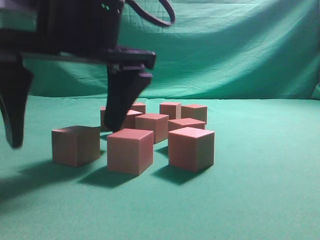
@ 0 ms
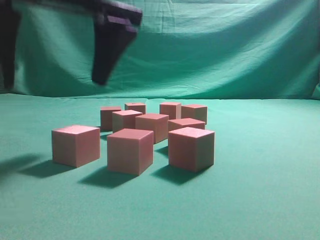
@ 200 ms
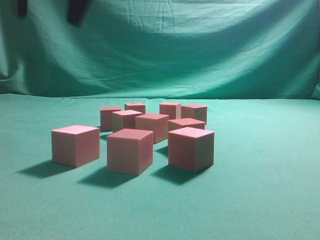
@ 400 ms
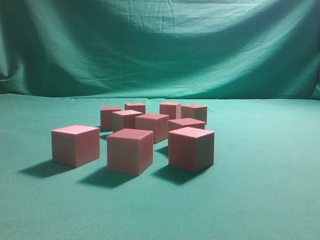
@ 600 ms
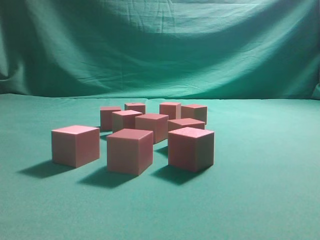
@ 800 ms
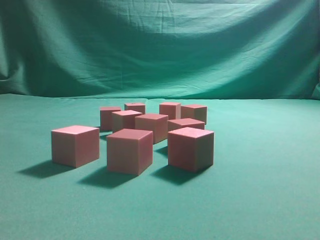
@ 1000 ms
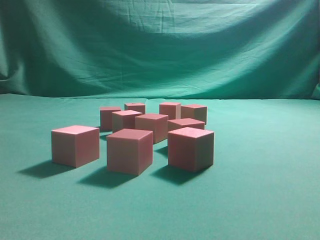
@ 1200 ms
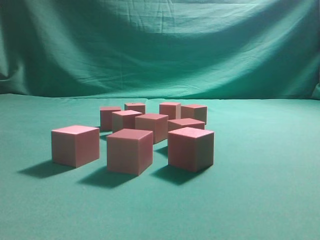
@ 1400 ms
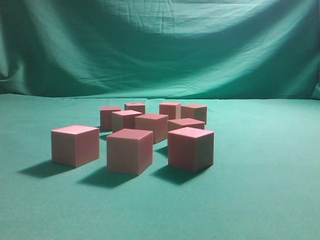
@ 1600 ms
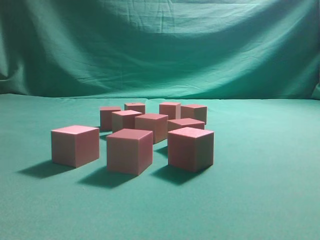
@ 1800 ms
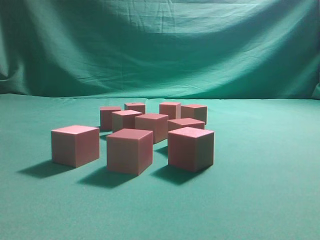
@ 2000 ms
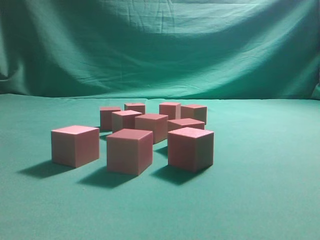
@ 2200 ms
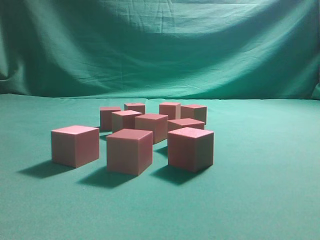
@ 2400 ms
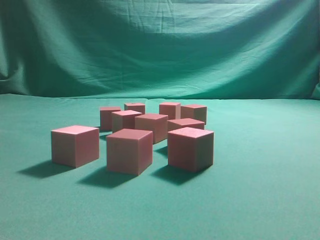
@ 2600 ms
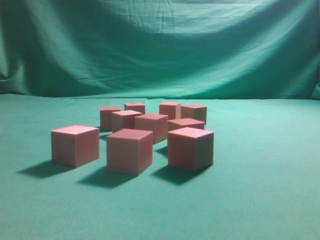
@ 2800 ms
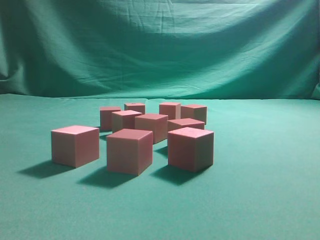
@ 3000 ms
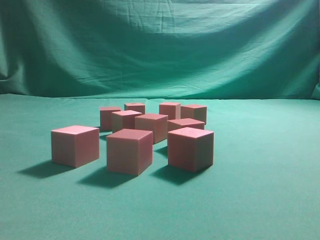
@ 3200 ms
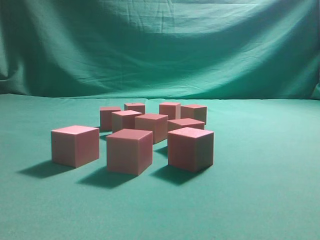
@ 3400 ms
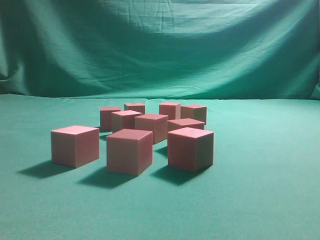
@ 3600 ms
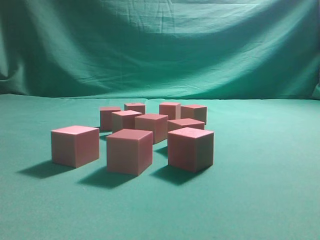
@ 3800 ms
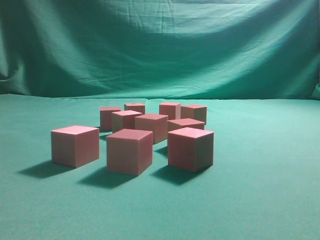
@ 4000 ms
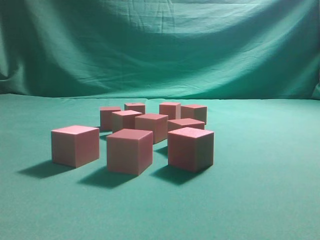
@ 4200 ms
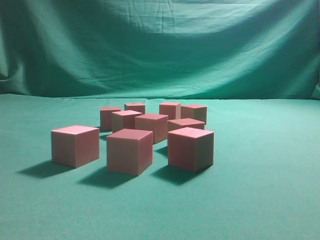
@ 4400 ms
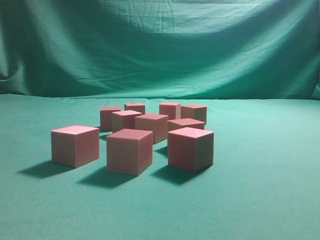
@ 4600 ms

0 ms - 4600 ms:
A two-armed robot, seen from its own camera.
Task of the whole recording: pick up the multiple cubes in two columns one by one and place them in another position on the table.
0 ms - 1600 ms: The right gripper shifts roughly 30 cm upward, to the right and backward, and closes its fingers.
